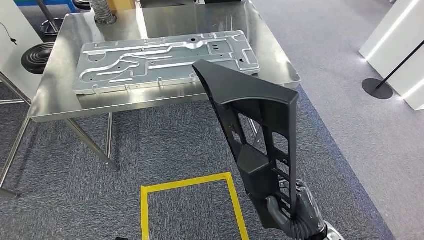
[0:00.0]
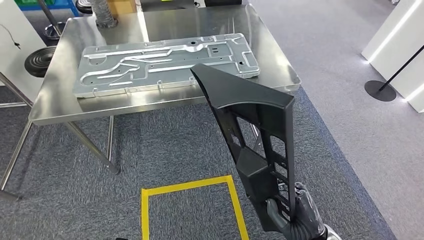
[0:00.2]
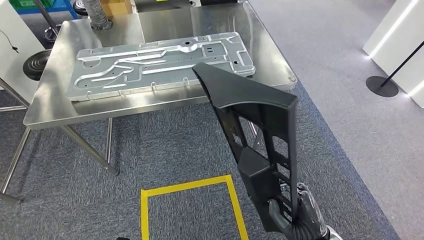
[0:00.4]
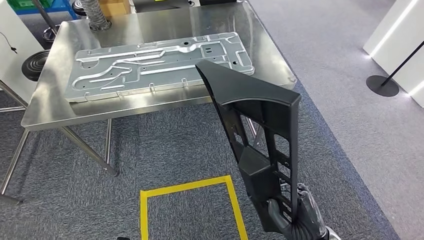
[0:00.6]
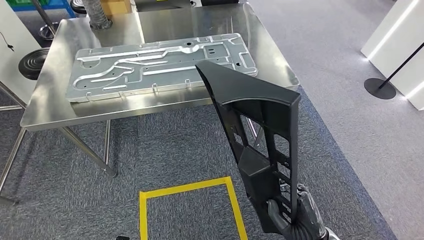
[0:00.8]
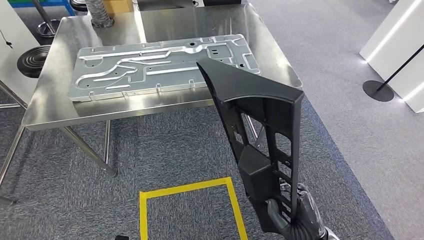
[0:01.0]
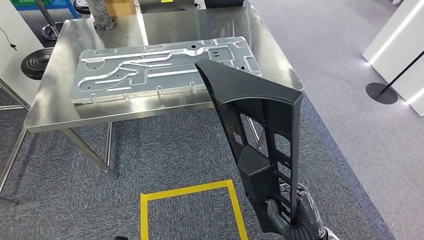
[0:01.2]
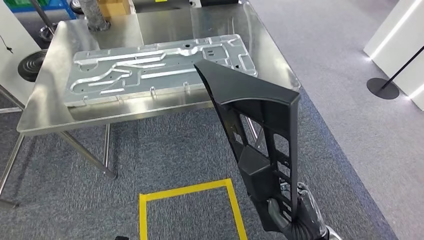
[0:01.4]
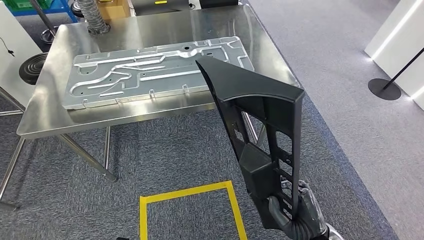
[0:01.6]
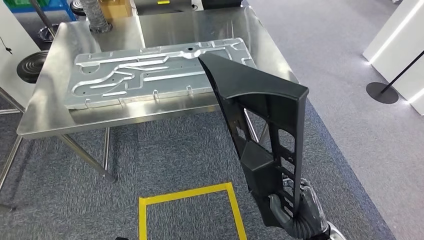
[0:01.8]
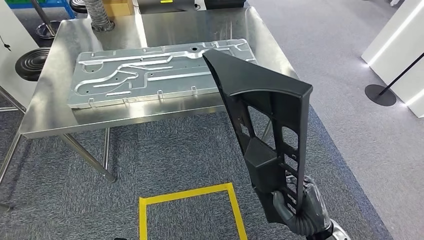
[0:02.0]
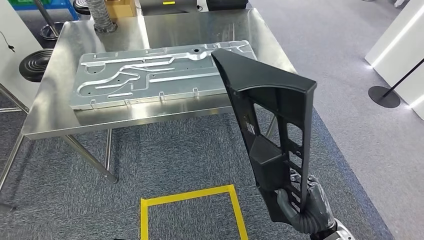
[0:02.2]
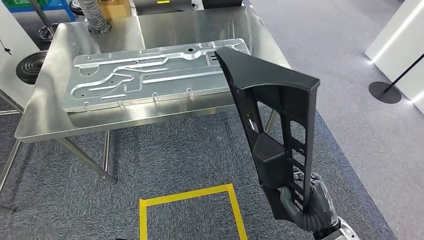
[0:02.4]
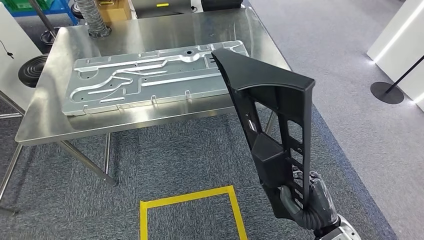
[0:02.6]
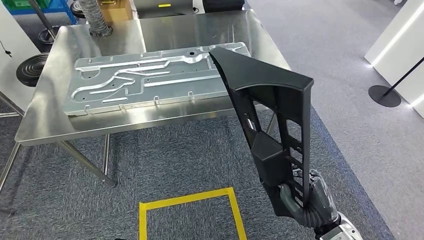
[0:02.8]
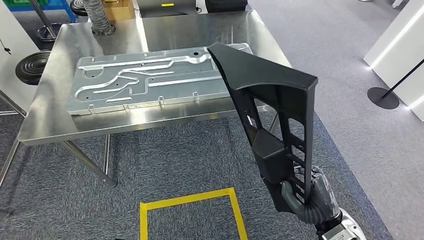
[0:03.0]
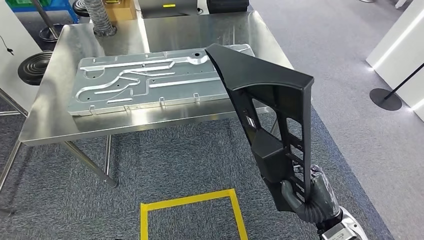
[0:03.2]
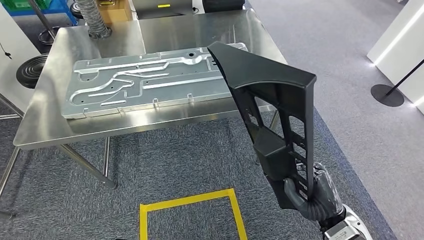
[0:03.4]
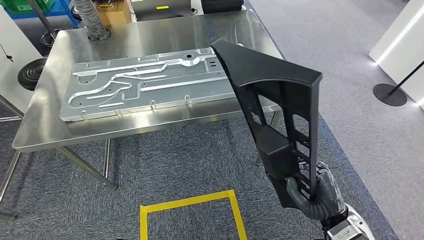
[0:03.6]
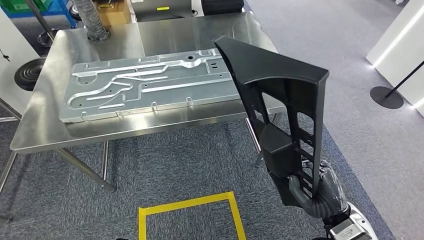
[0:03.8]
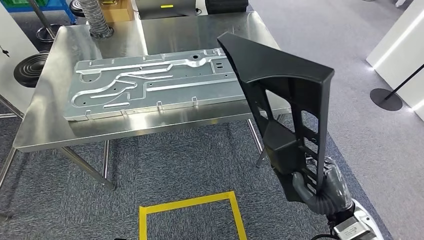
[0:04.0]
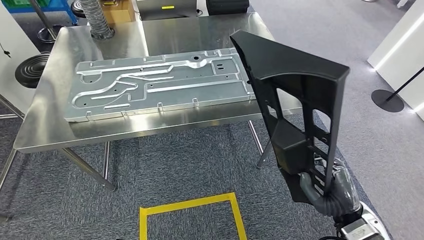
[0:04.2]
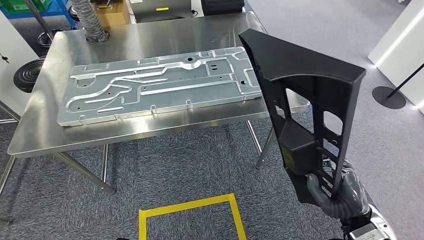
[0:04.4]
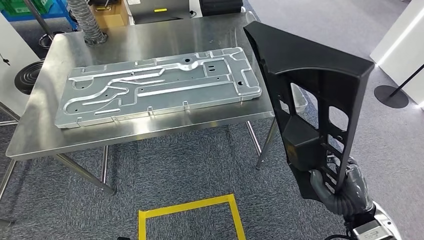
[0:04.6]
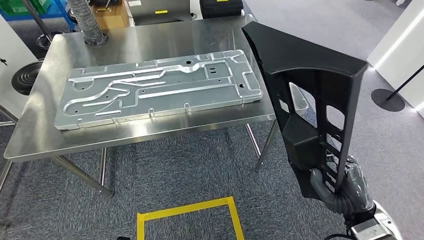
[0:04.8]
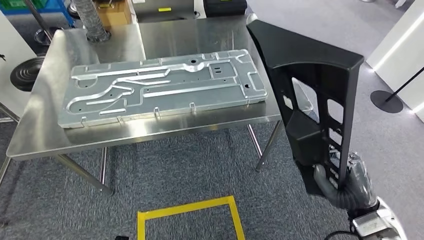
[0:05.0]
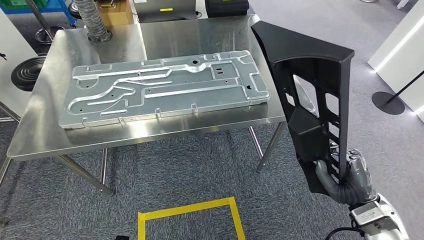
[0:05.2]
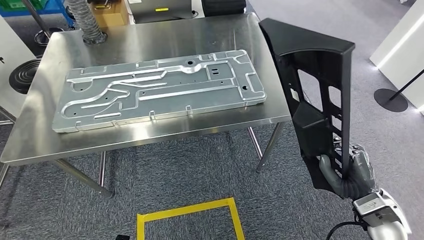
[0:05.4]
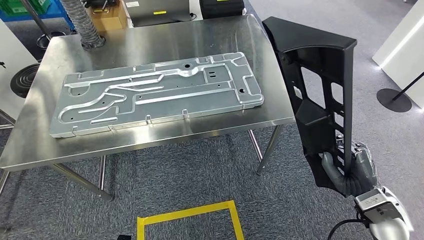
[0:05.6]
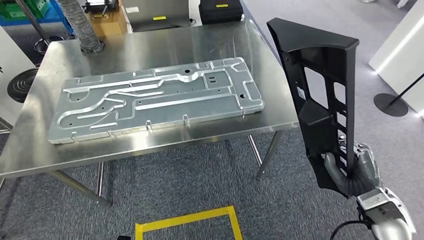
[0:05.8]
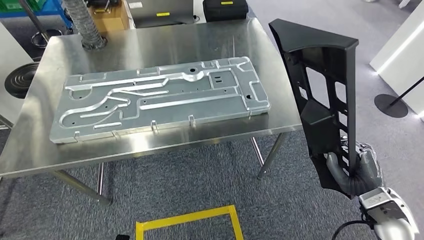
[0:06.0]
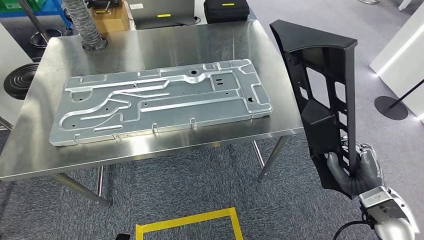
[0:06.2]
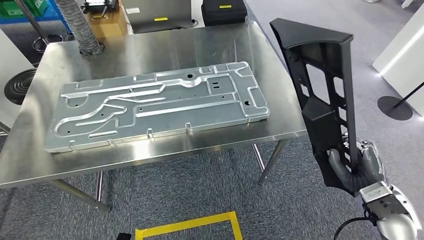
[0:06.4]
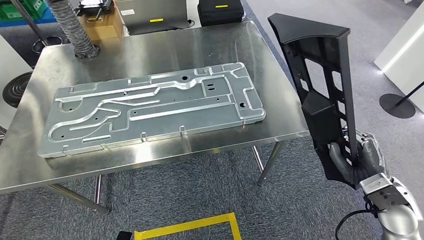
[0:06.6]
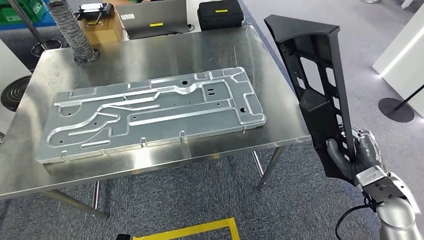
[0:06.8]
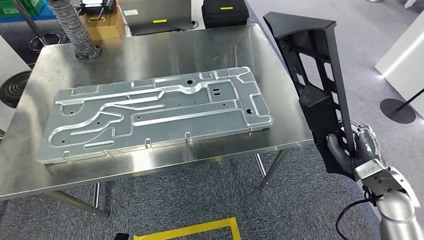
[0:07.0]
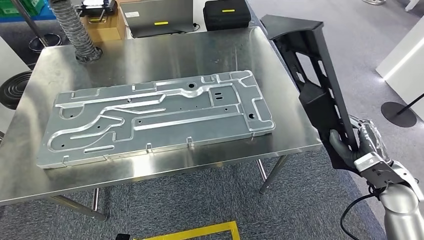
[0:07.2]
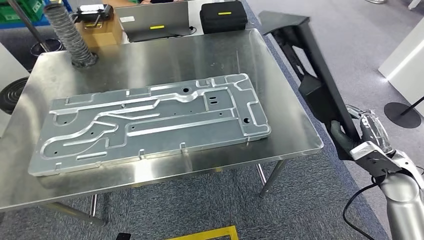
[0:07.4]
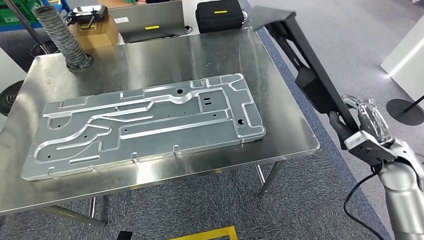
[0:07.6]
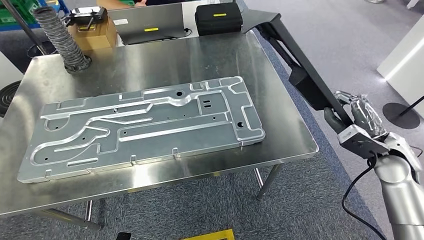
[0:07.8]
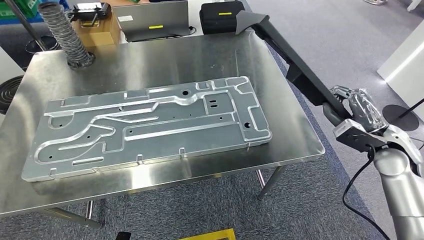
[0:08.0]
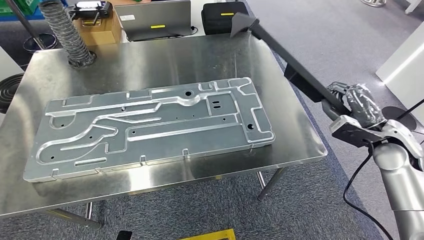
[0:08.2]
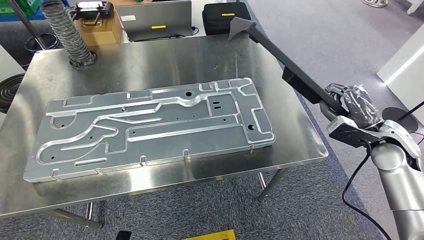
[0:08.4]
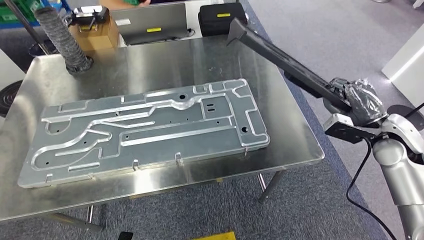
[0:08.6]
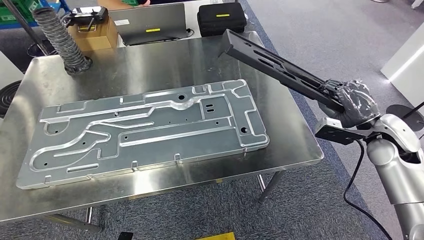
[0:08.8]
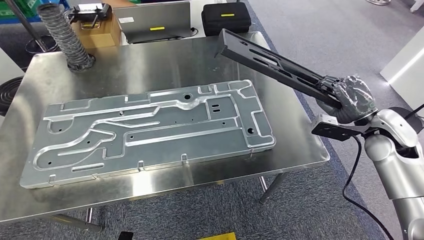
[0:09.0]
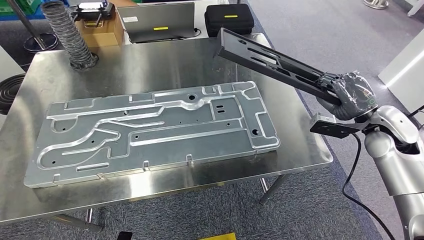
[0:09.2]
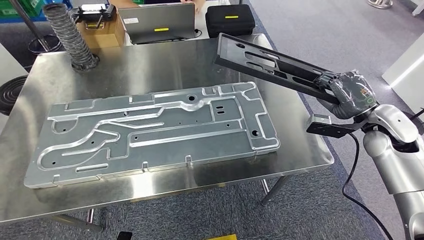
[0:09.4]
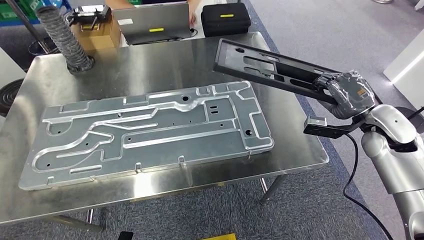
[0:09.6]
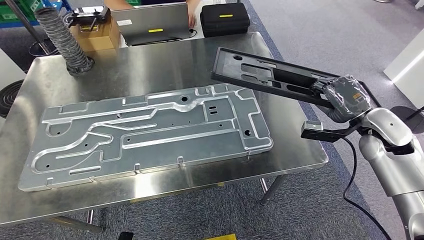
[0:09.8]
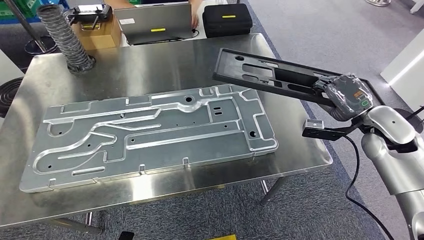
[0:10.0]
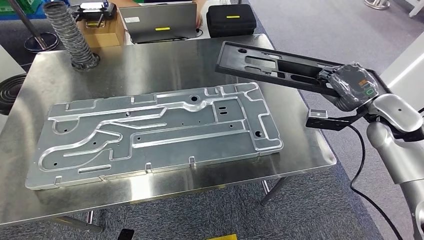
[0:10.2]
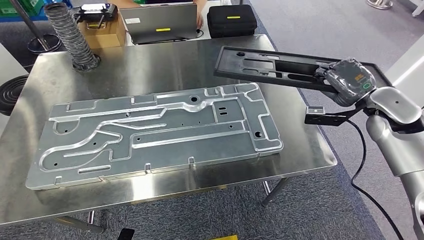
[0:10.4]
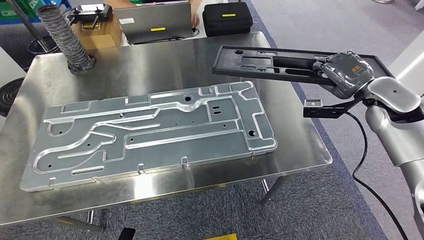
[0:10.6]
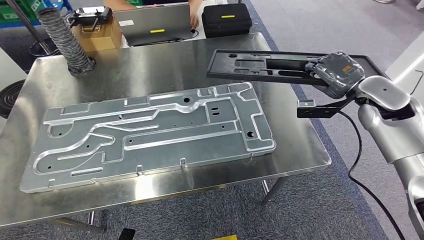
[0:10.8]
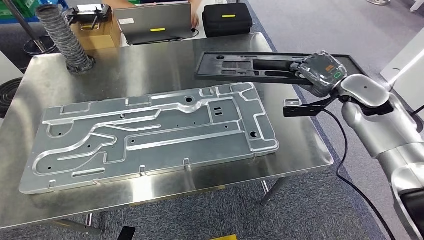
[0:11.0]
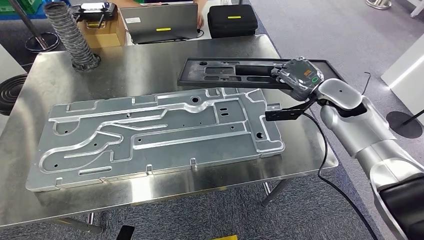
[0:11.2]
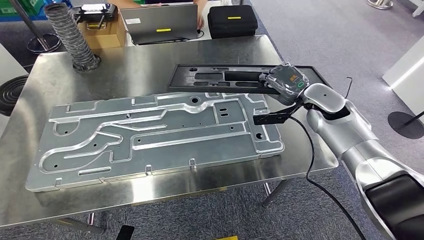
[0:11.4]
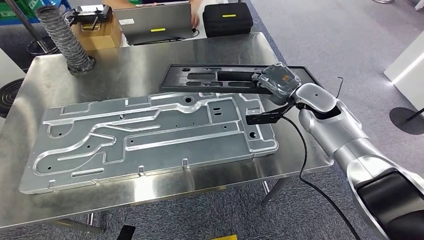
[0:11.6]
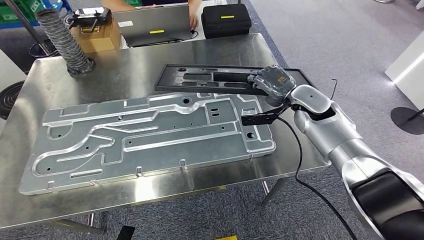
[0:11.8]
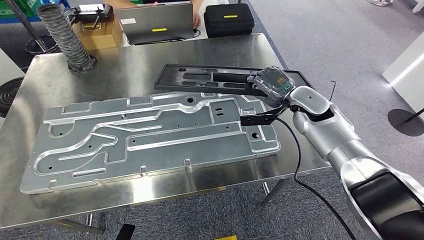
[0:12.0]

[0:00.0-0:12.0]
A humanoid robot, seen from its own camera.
Step, 0:00.0 to 0:08.4: Move the large material to the workbench.

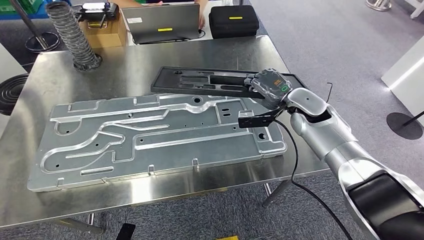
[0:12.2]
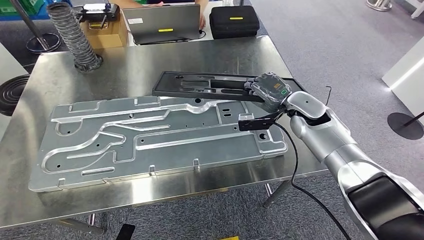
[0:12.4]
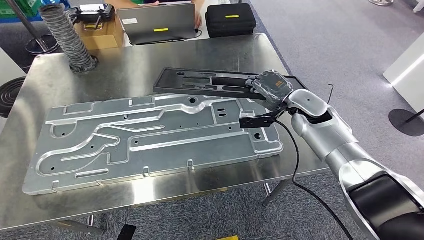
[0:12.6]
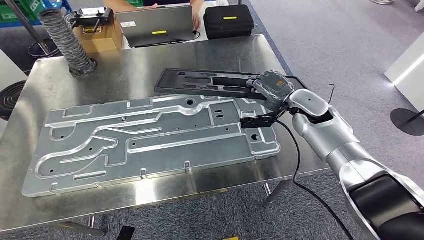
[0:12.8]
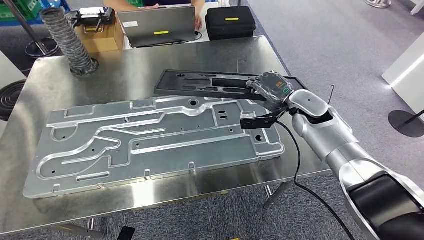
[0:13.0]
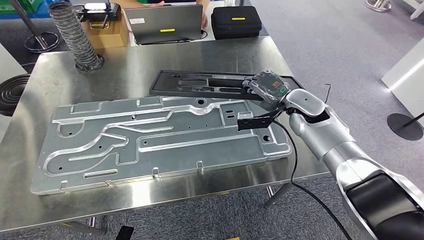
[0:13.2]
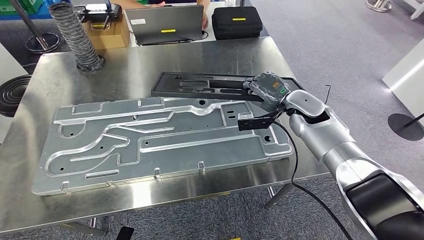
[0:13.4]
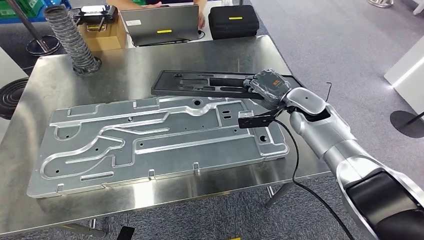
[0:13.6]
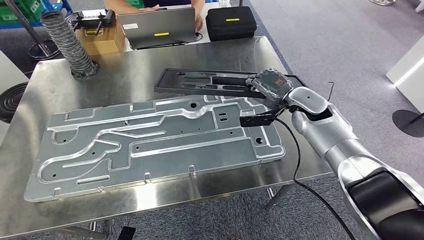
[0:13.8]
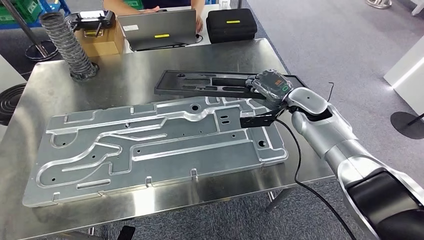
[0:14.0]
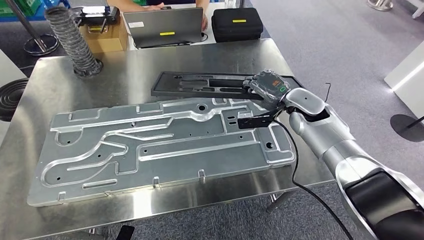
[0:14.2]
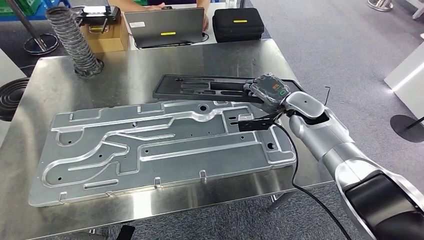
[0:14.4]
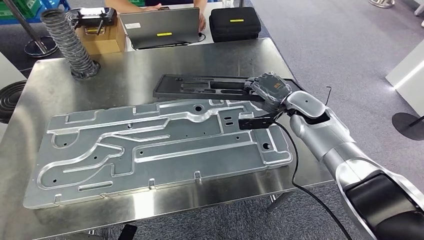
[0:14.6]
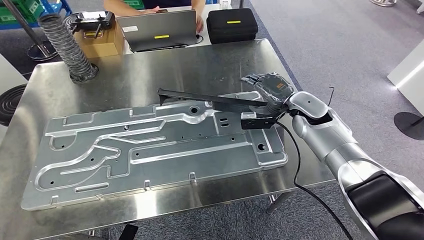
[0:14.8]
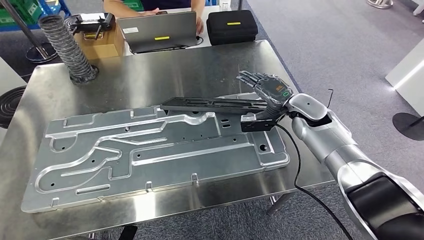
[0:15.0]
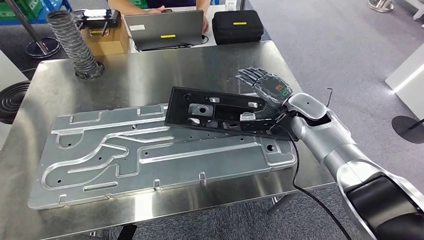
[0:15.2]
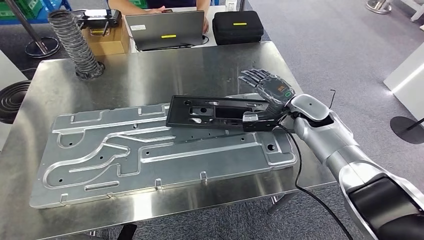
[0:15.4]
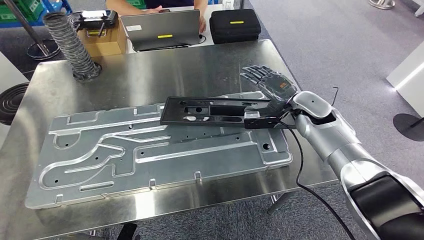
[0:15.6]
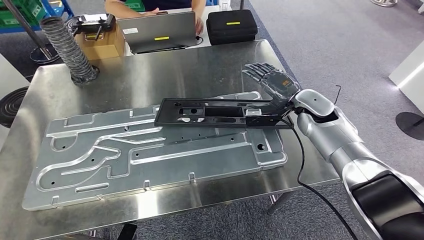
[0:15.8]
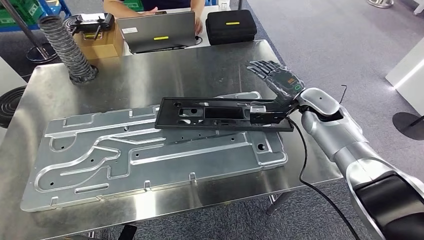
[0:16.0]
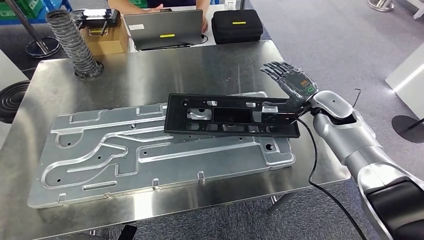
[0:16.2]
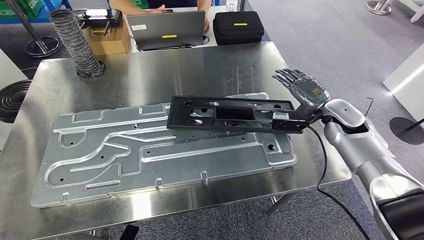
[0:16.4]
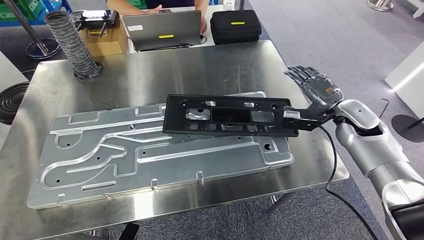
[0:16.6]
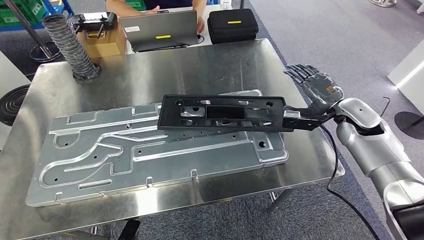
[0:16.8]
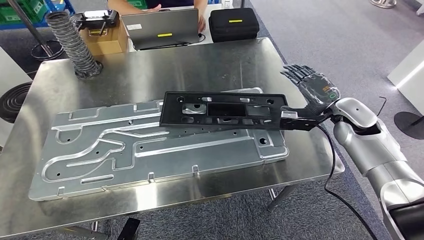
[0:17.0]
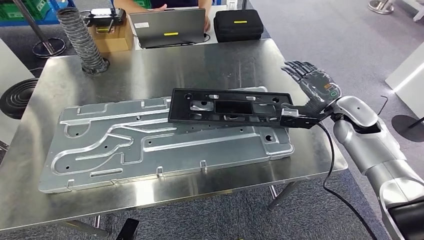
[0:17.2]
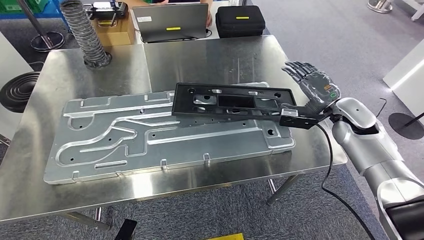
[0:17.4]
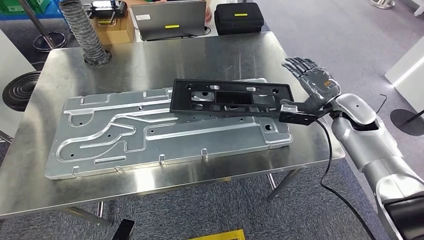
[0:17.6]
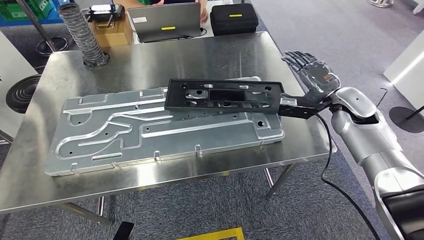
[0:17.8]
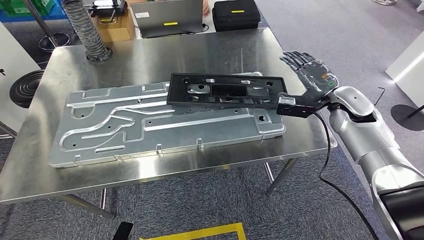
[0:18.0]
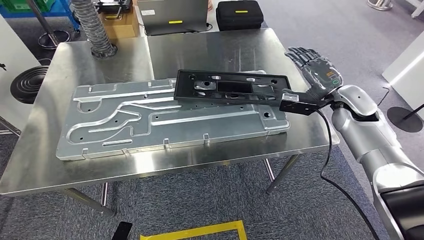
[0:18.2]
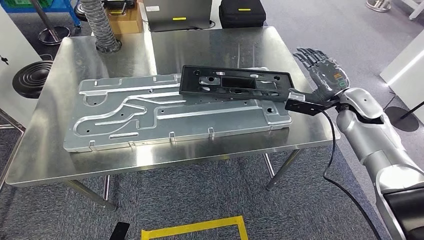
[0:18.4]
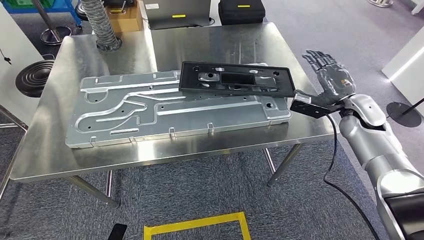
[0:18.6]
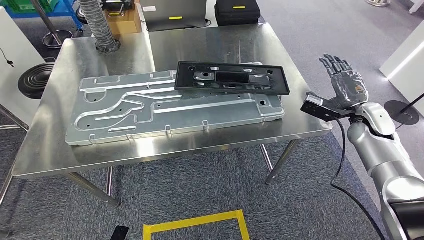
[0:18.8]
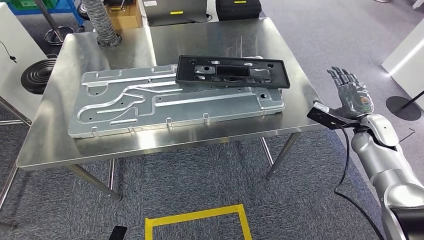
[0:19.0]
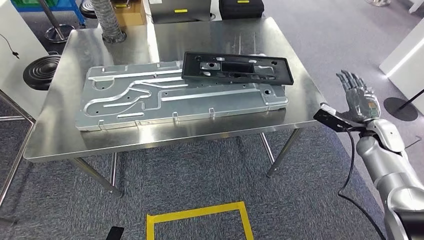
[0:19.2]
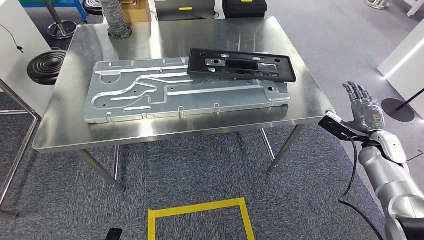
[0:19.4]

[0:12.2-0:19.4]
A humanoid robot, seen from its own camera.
Step, 0:12.2 to 0:16.6: Insert the large material into the corresponding slot on the workbench.
